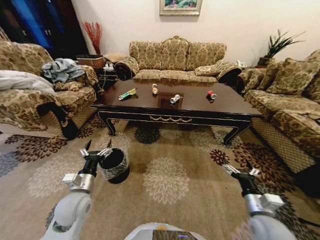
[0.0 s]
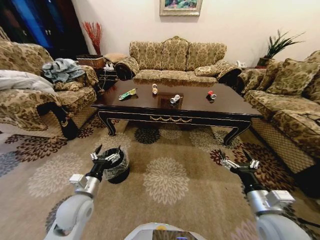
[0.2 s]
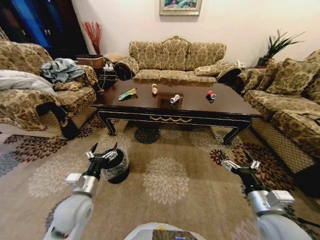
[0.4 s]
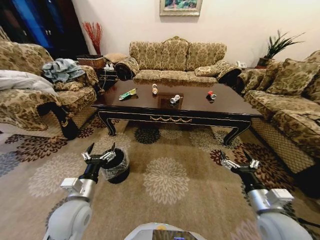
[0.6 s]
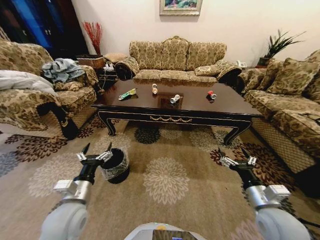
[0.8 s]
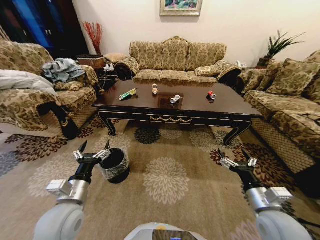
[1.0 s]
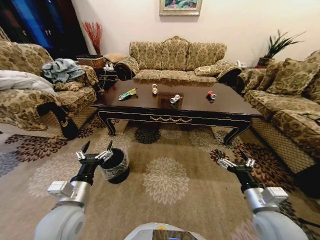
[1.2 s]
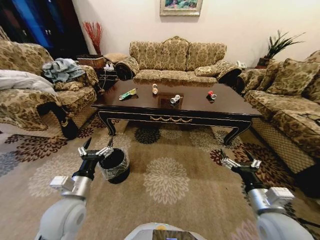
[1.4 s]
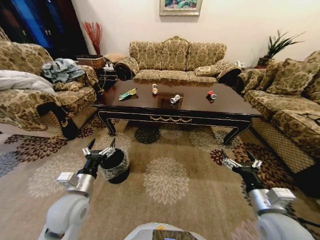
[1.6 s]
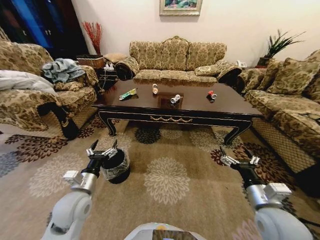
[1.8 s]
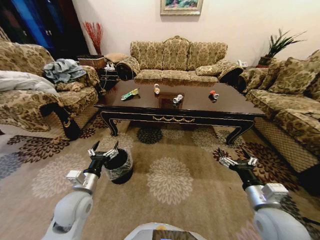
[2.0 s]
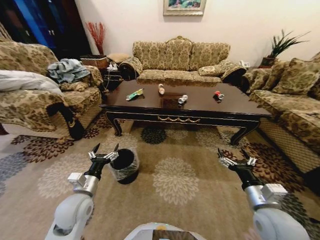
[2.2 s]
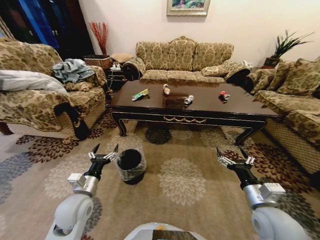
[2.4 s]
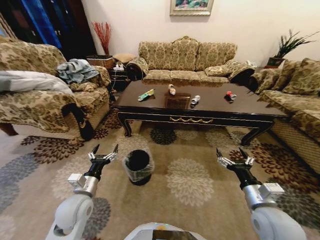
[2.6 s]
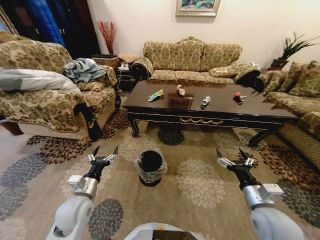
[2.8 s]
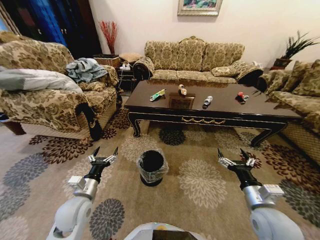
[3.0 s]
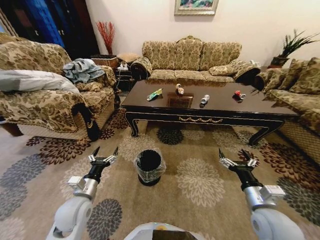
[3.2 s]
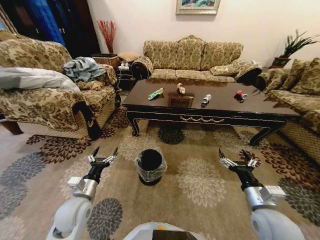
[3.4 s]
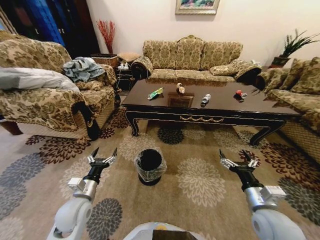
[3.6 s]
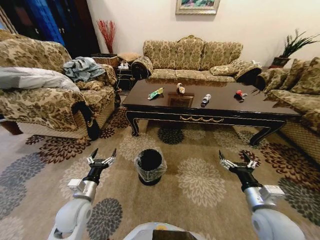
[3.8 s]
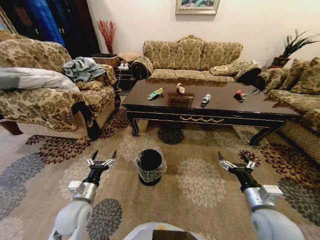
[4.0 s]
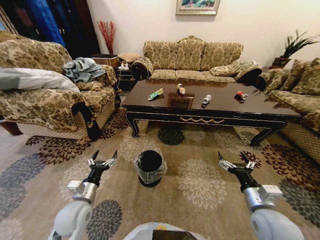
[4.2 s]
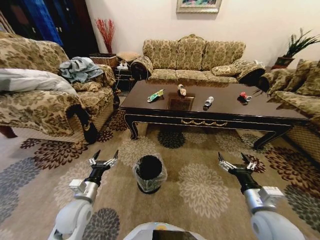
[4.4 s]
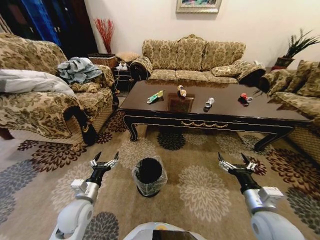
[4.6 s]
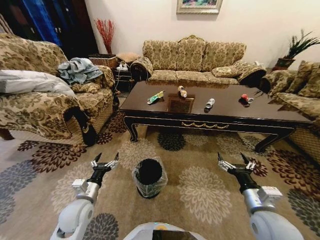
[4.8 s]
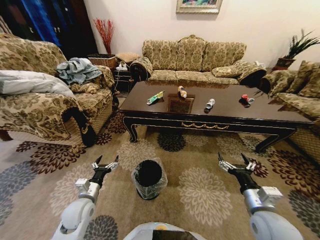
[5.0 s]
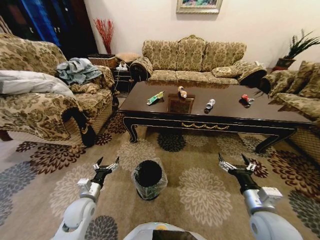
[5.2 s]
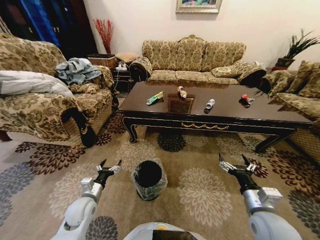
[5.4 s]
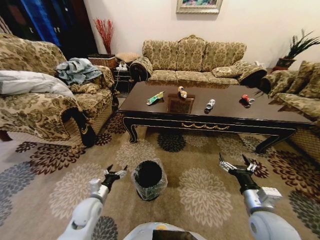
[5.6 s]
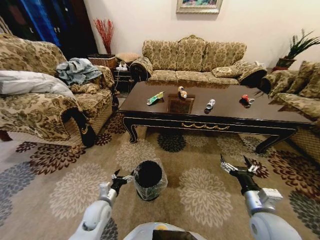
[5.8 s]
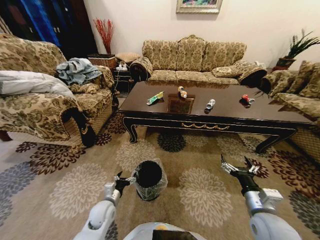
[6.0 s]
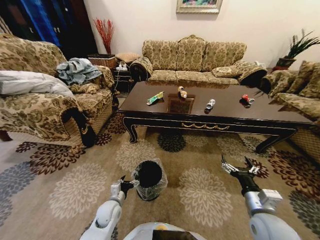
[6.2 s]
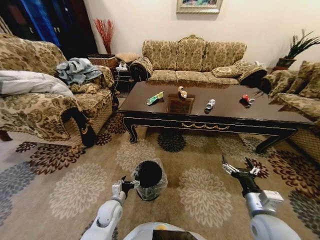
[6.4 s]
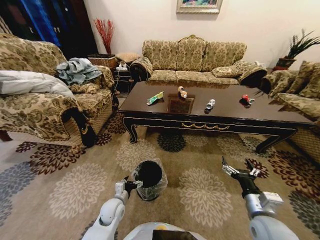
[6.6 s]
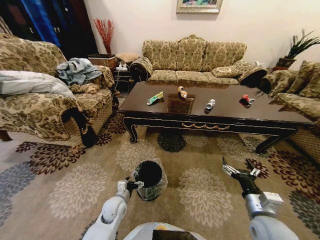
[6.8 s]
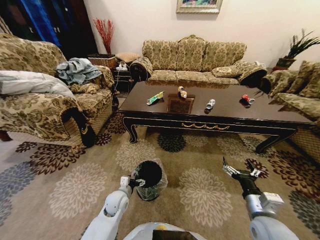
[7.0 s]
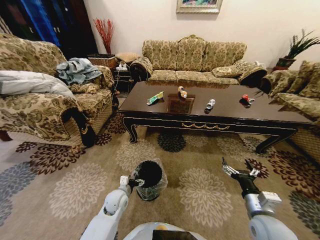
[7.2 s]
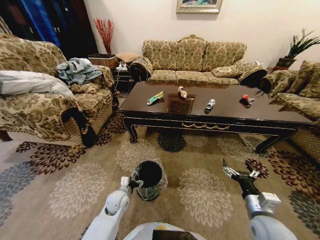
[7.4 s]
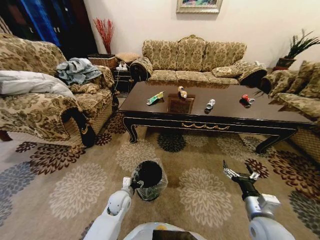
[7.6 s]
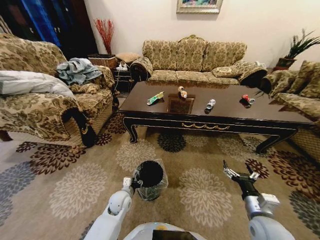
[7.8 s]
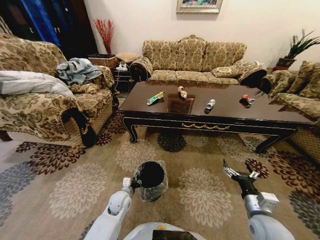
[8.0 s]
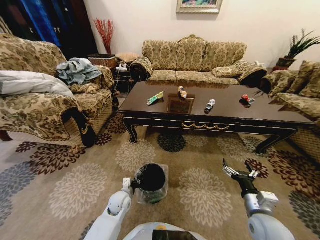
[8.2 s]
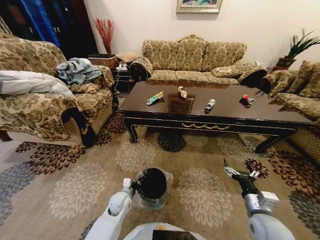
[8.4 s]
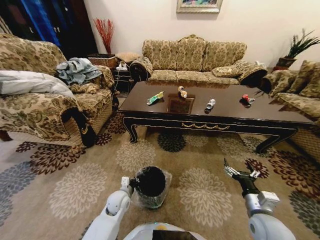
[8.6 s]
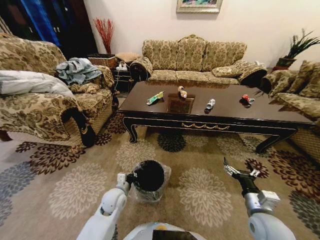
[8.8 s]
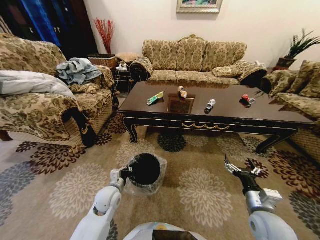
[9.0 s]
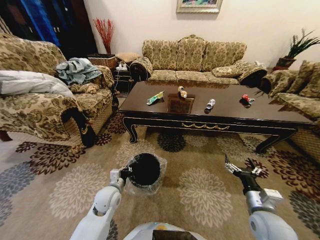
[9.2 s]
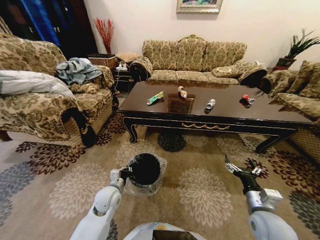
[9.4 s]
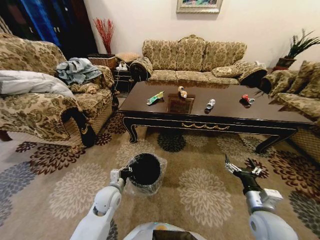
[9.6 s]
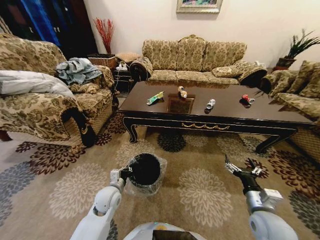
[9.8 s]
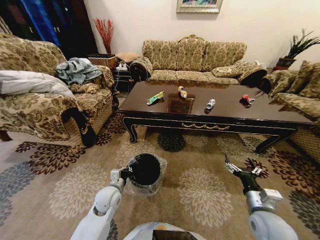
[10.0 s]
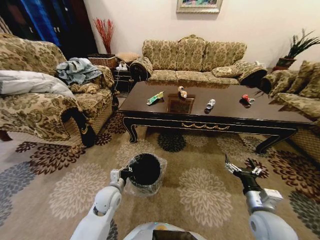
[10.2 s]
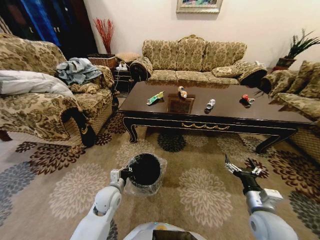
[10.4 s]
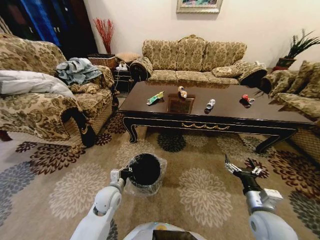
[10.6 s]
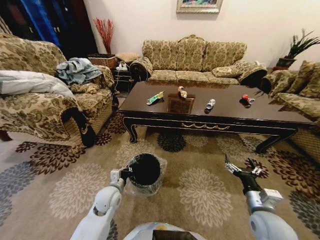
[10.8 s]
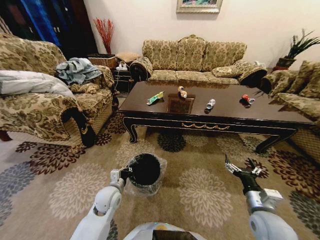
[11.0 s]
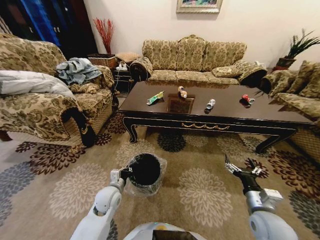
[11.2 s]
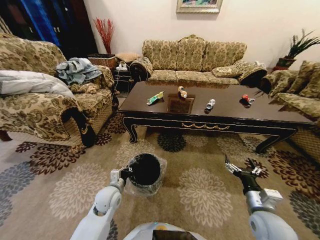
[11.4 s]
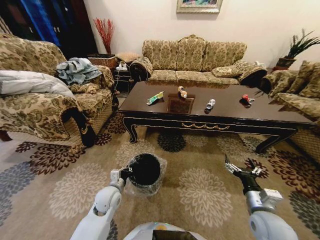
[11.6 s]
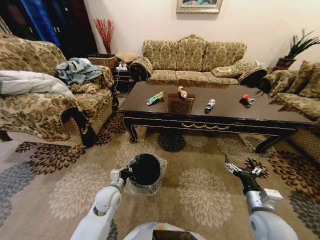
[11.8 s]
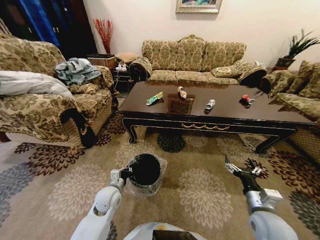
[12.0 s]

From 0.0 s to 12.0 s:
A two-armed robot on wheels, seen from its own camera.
Task of the whole recording: Move to the front of the table and place the trash on the table into the trash bin.
From 1.6 s to 3.0 s: The left gripper moves downward, roughly 5 cm.
From 4.4 s to 6.0 s: The left gripper travels downward and to the right by roughly 15 cm.
From 6.0 s to 7.6 s: The left gripper is displaced to the right by some 5 cm.
From 7.6 s to 9.0 s: The left gripper travels upward by about 10 cm, and closes its fingers.
From 9.0 s to 12.0 s: The two grippers keep their place.

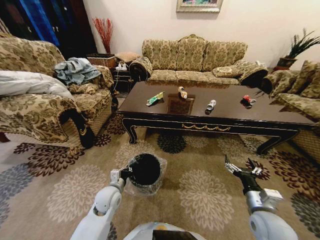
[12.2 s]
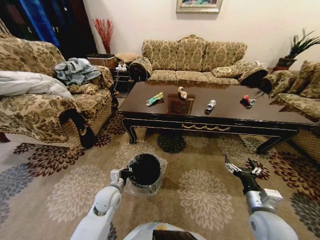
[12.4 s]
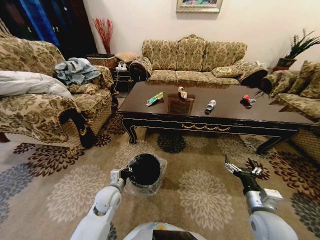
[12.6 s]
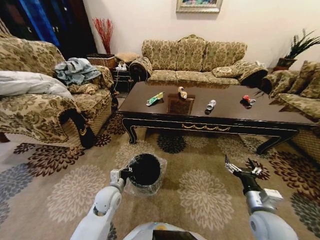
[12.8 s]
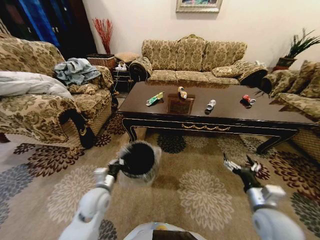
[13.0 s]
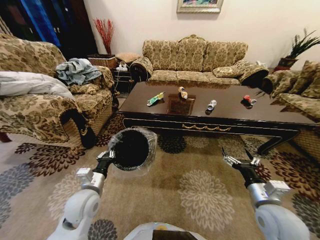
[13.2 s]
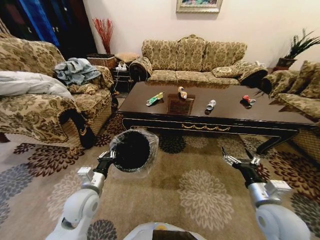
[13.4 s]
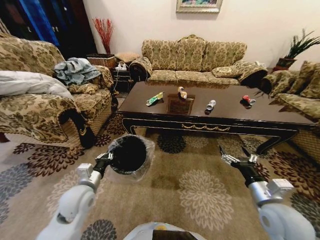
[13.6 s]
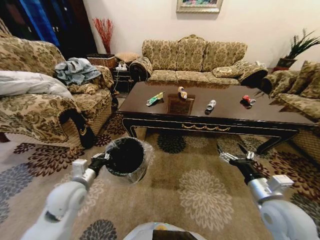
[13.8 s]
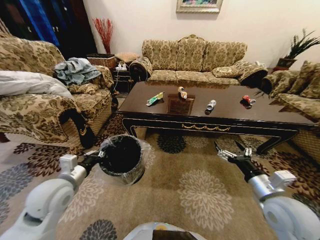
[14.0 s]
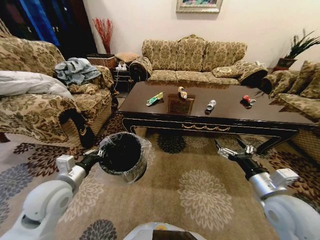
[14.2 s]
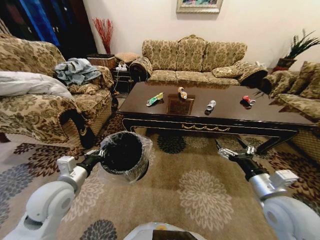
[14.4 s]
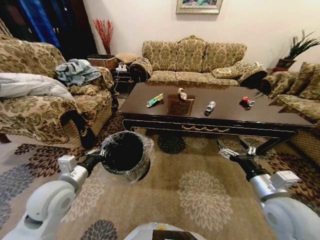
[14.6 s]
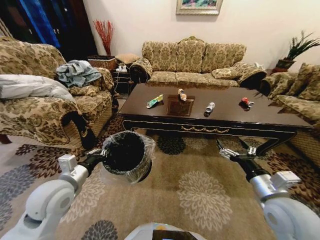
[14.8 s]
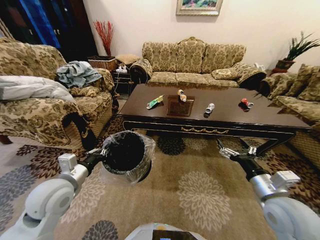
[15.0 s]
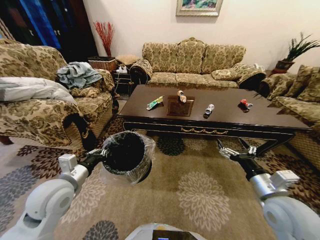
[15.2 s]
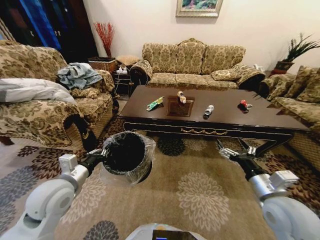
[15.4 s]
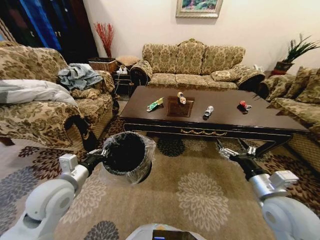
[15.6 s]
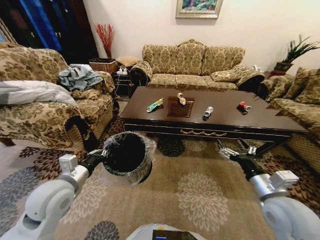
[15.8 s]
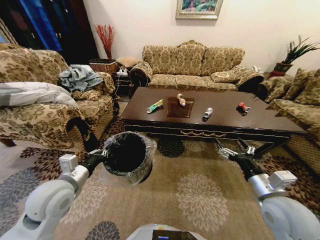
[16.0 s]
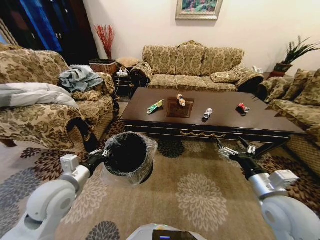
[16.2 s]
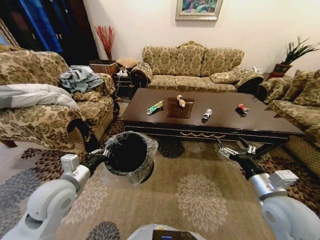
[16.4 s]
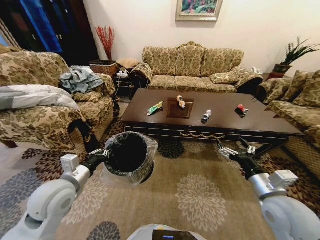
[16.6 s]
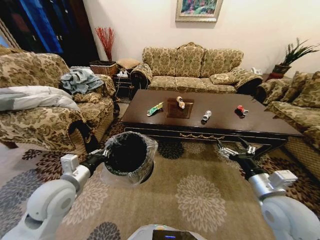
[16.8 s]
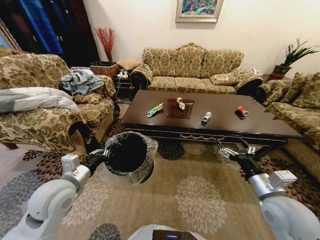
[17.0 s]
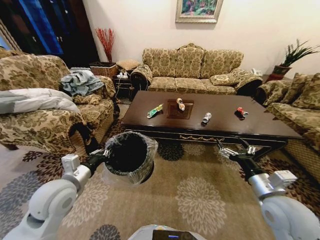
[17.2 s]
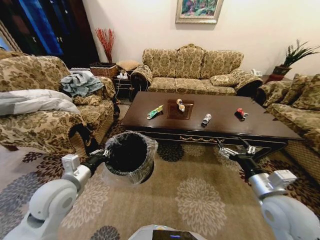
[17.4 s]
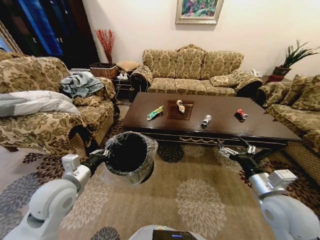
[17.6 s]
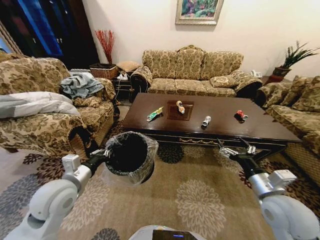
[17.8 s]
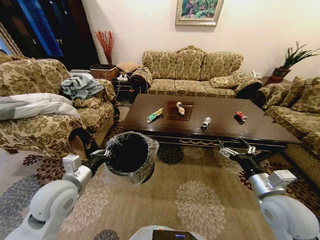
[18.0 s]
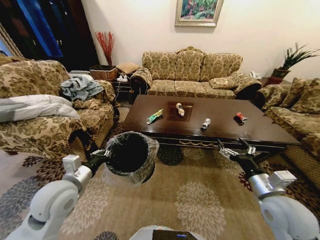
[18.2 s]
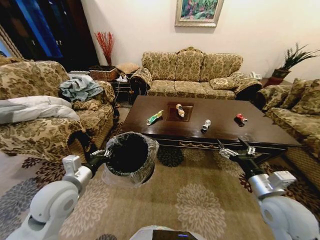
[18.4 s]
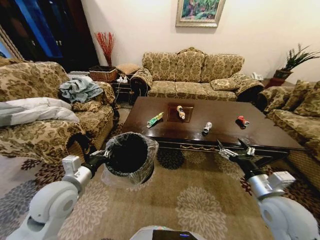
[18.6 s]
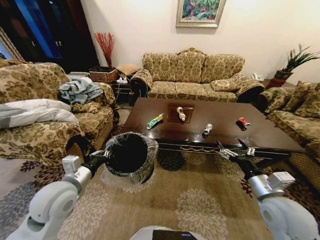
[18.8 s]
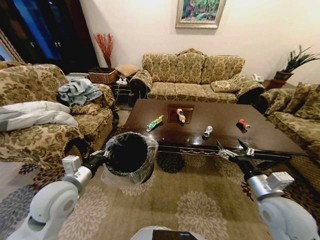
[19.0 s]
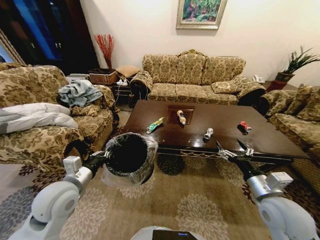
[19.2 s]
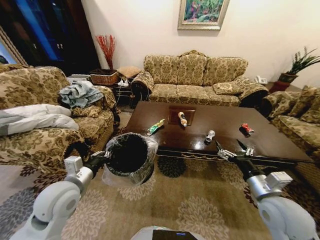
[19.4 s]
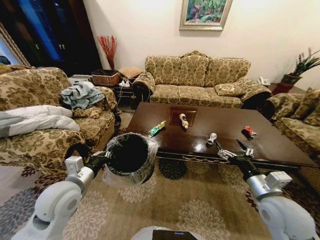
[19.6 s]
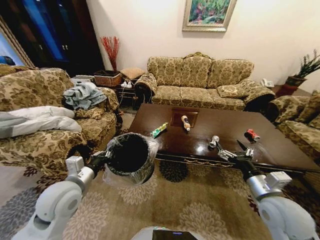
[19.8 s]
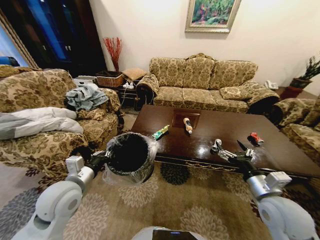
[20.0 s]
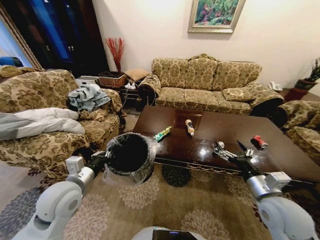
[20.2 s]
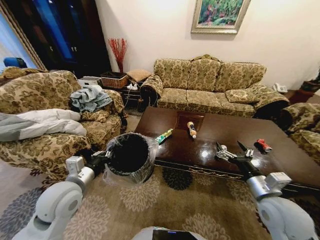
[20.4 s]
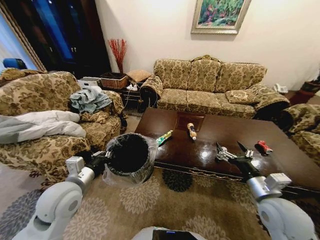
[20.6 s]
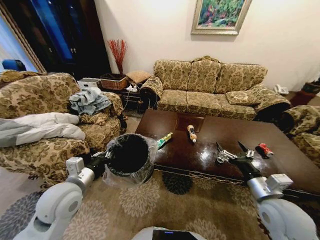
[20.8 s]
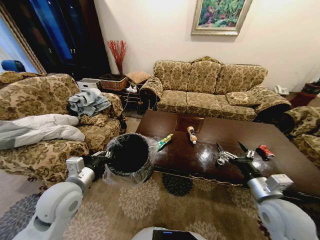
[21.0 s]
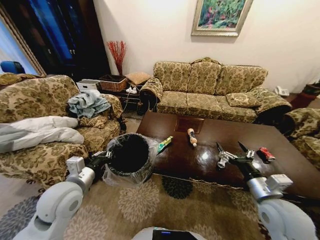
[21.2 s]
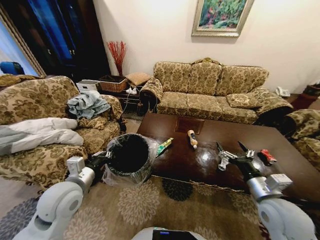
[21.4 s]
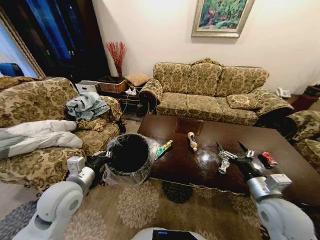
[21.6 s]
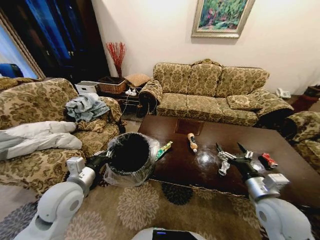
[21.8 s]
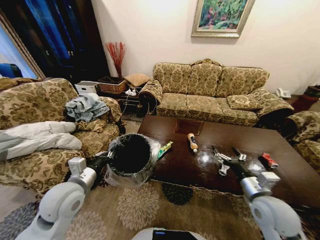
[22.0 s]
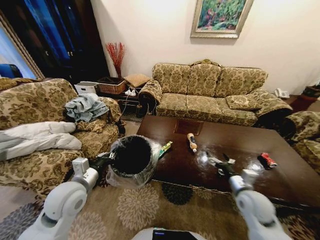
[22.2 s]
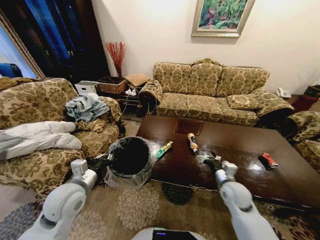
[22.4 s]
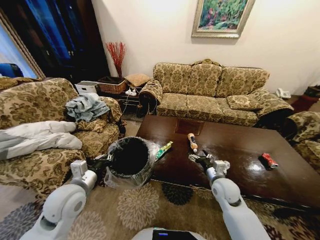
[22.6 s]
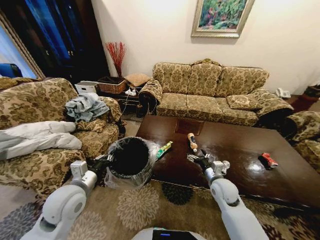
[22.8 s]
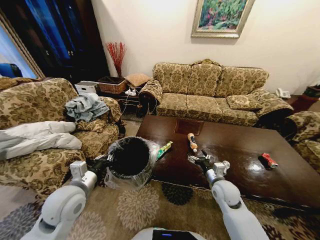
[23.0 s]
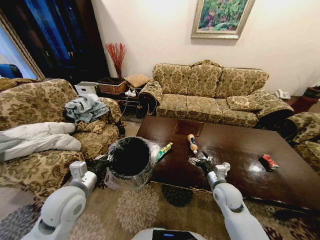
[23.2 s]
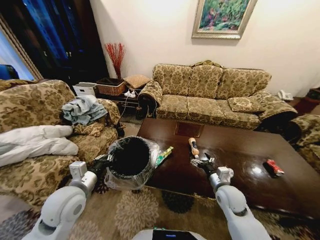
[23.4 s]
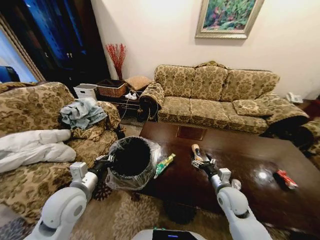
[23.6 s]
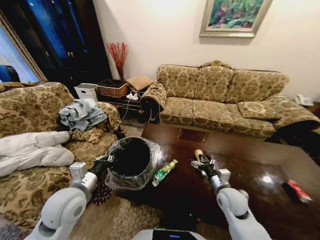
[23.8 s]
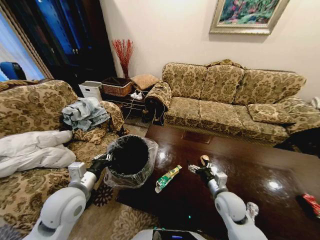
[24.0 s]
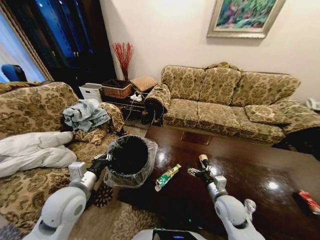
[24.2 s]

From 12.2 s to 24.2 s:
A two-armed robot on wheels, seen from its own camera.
Task of the whole recording: Move to the front of the table and place the trash on the table into the trash bin.
From 12.2 s to 13.8 s: The left gripper is displaced upward and to the left by approximately 15 cm. The right gripper heads upward, covering some 5 cm.
From 21.2 s to 22.6 s: The right gripper goes some 15 cm downward, forward and to the left.
From 22.6 s to 24.2 s: The right gripper moves backward, approximately 5 cm.
